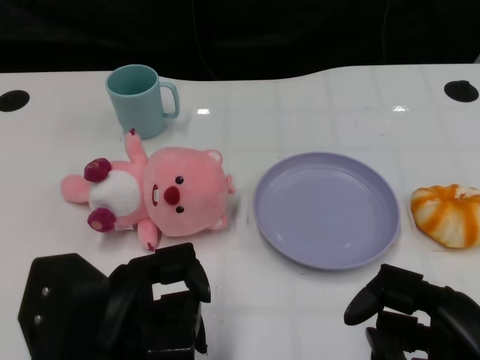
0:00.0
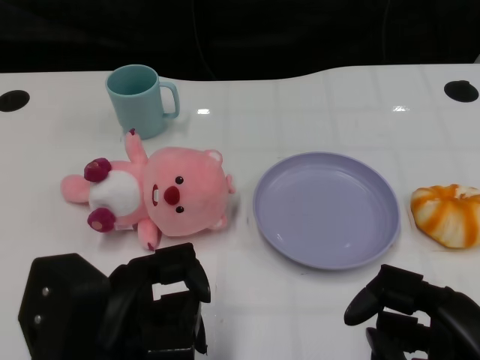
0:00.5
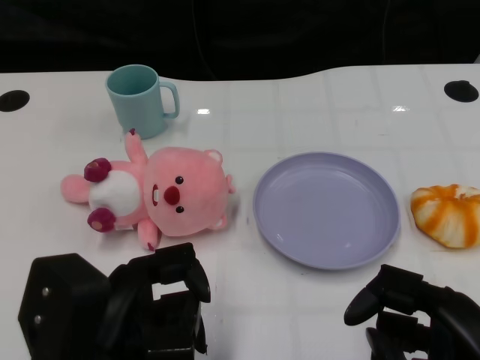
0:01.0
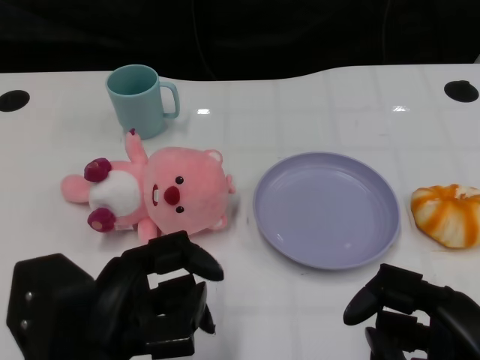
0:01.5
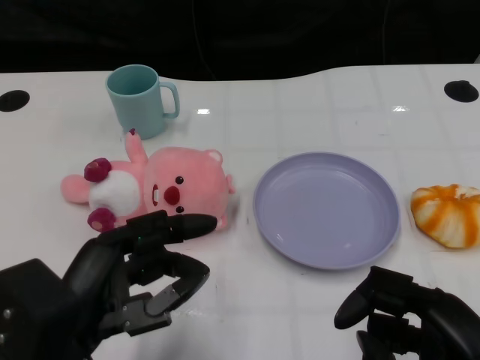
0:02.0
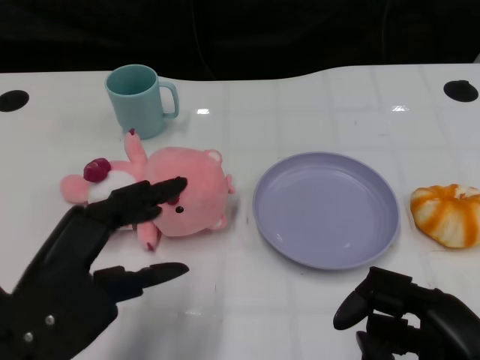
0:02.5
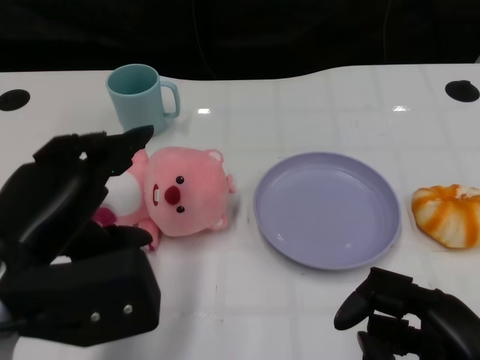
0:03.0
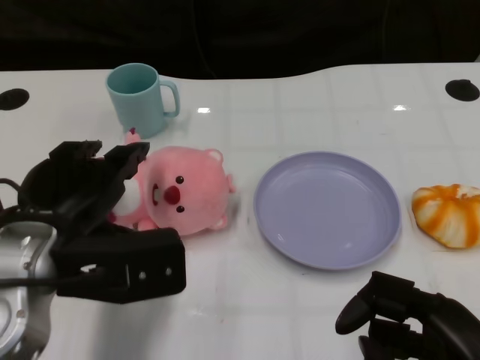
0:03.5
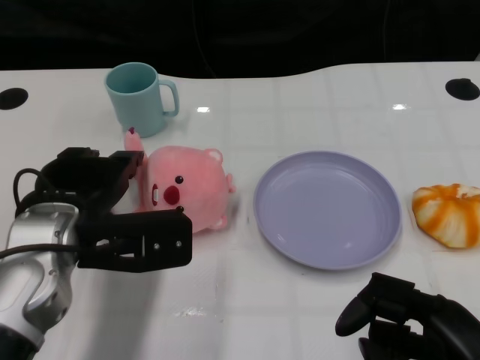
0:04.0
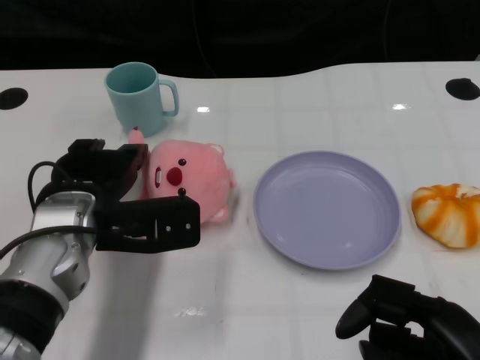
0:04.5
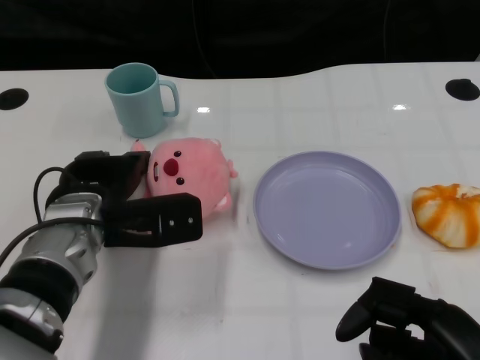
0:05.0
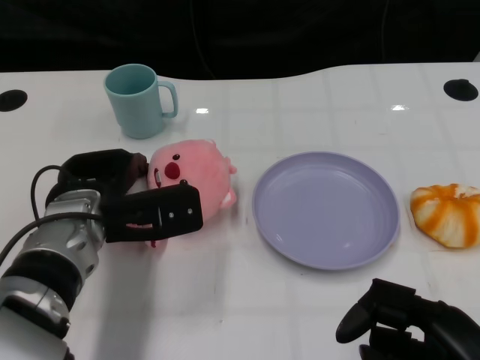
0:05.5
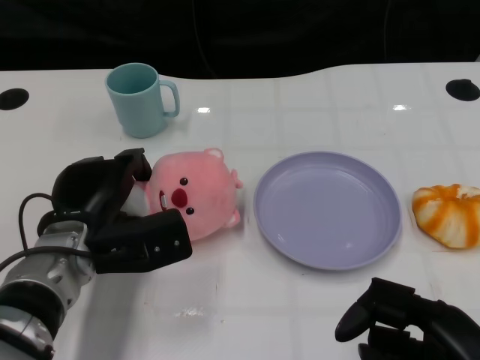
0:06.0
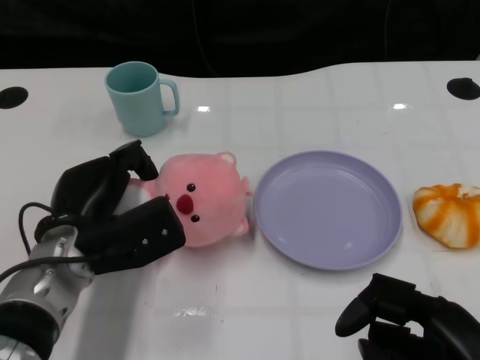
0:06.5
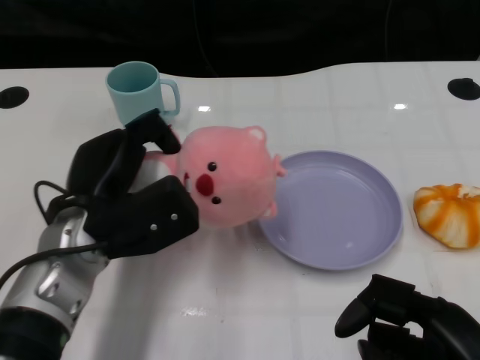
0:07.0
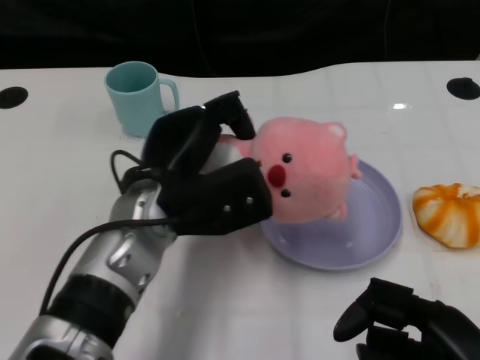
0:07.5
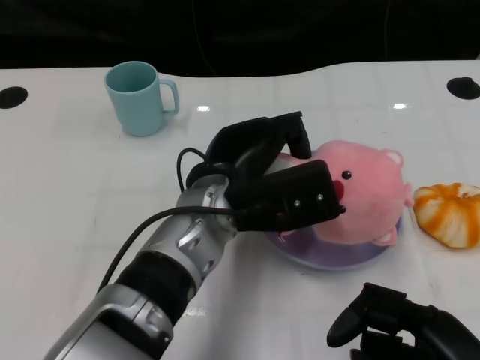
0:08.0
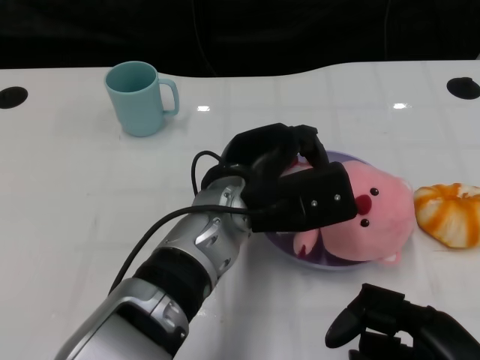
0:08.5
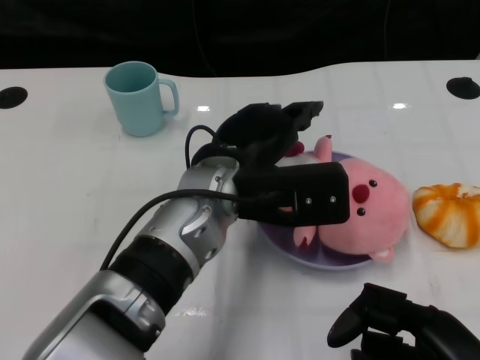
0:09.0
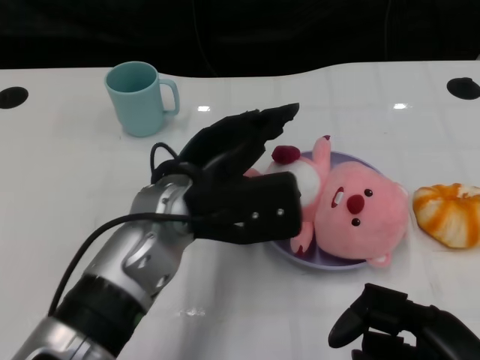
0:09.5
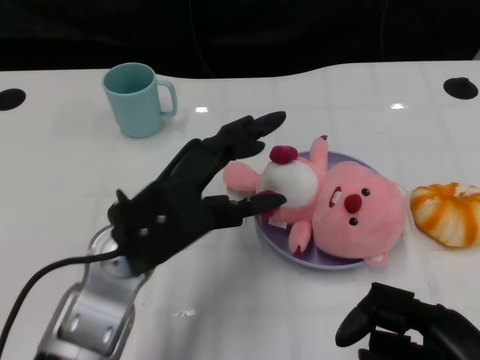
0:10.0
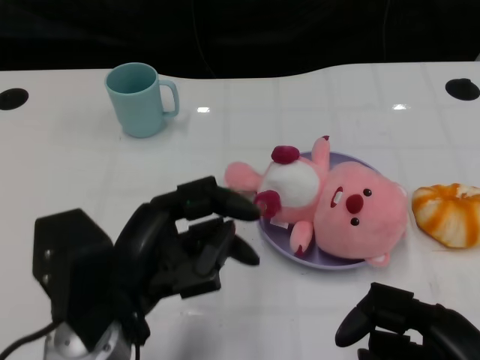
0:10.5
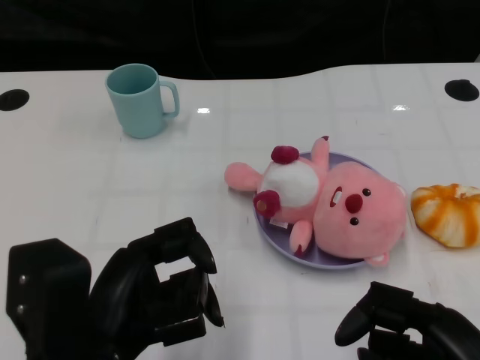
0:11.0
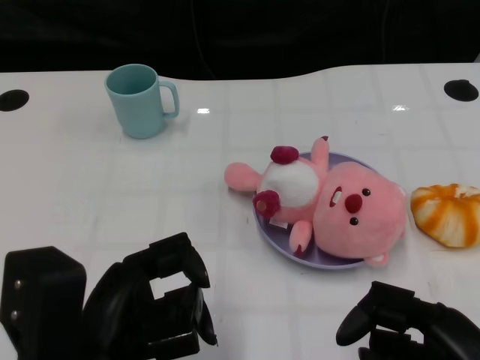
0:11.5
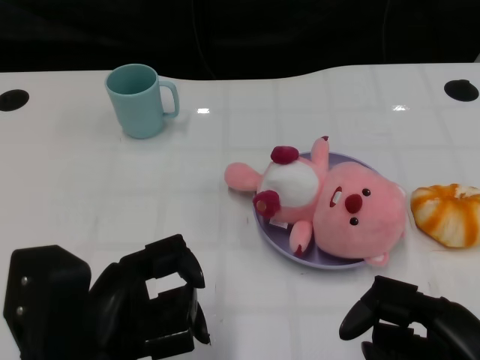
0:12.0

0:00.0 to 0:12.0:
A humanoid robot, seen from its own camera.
Task of the whole recording: Pick up the doll on one side of the plate and place it into the plate.
Step, 0:01.5 to 0:06.5: Grasp the pink doll with the left gripper.
Step, 0:07.0 to 0:09.0: Place the pink doll into the plate with the left gripper.
0:02.0 to 0:04.0: The left hand goes about 10 cm forward.
0:04.0 to 0:06.0: The left hand shifts roughly 5 cm downward.
0:06.0 to 0:08.0: The left hand goes approximately 15 cm to the right and upward.
0:08.0 to 0:10.0: The left hand heads to the left, covering about 10 cm.
0:10.0 to 0:12.0: The left hand heads backward, covering roughly 10 cm.

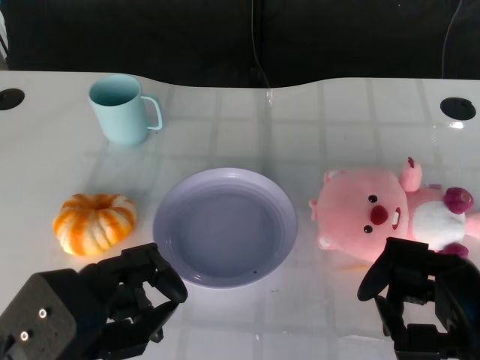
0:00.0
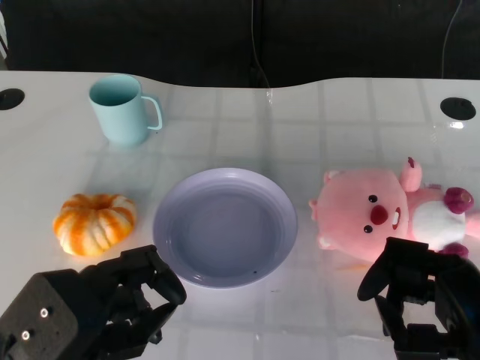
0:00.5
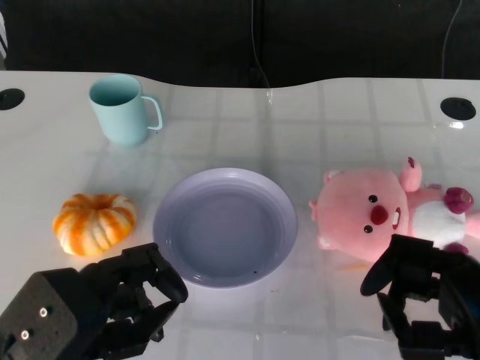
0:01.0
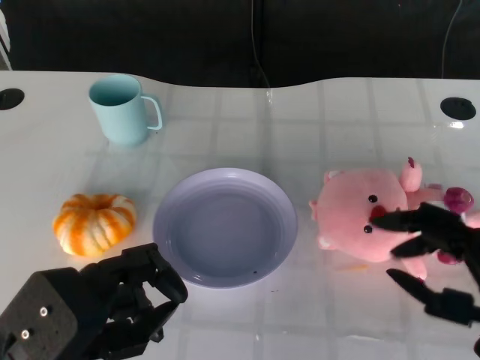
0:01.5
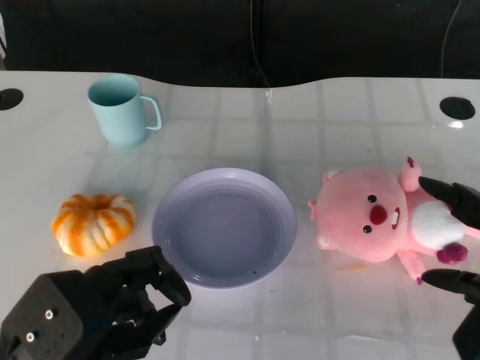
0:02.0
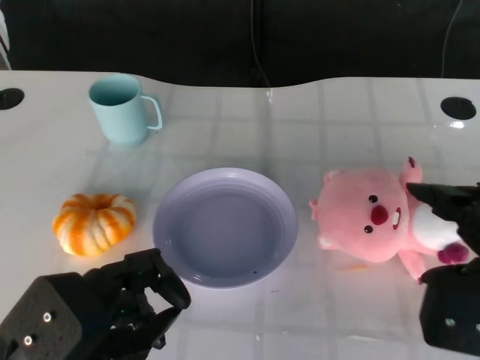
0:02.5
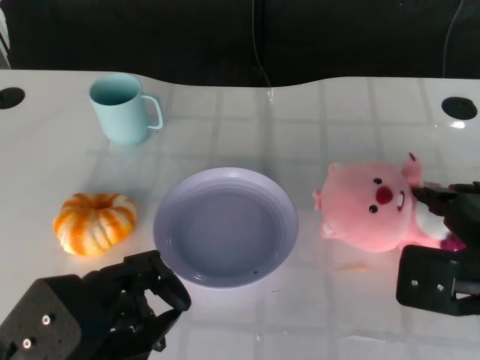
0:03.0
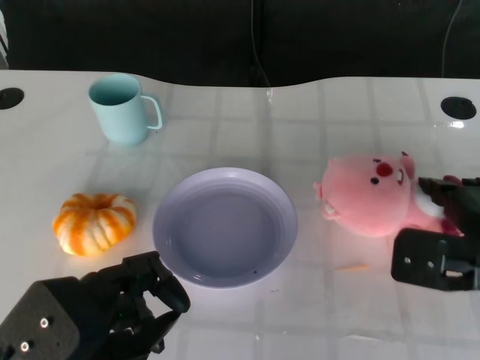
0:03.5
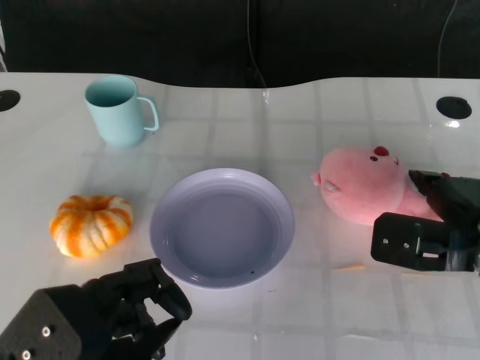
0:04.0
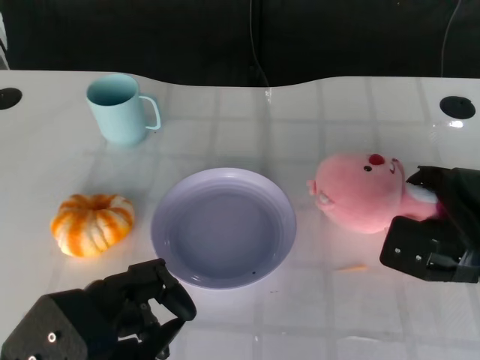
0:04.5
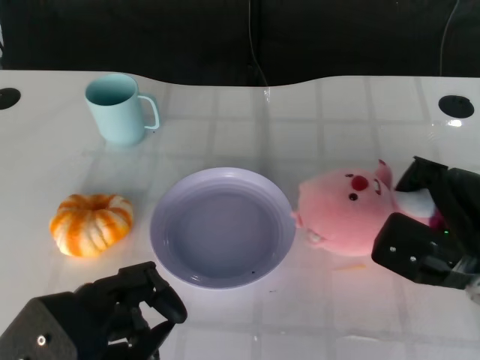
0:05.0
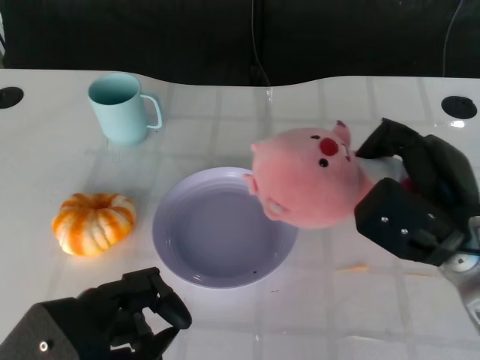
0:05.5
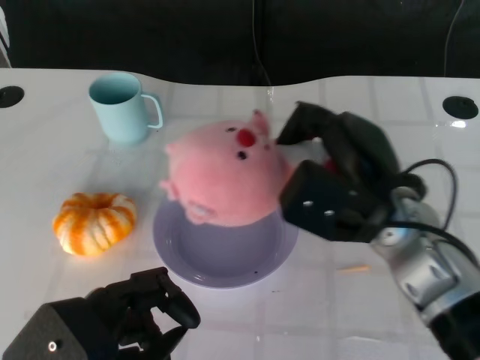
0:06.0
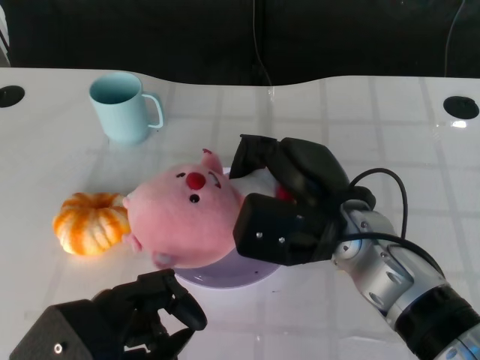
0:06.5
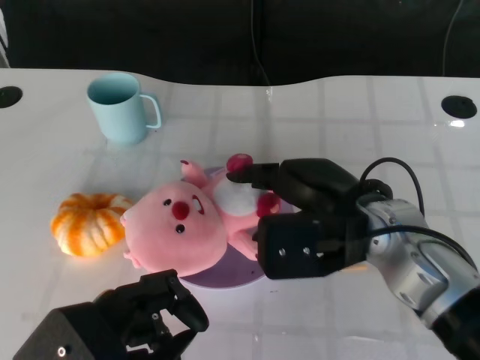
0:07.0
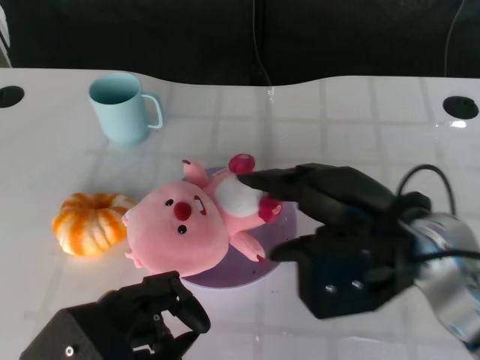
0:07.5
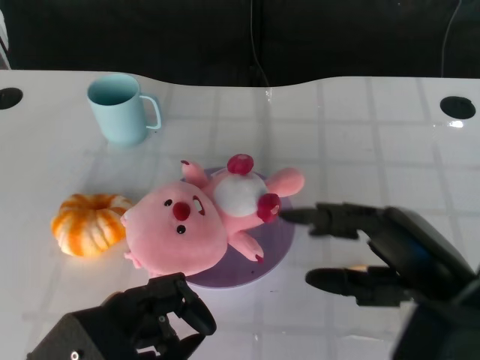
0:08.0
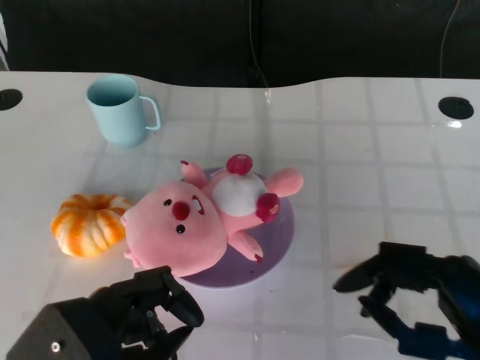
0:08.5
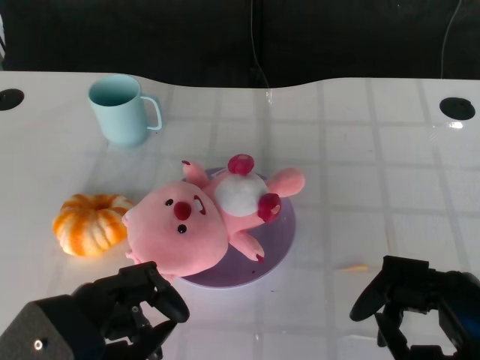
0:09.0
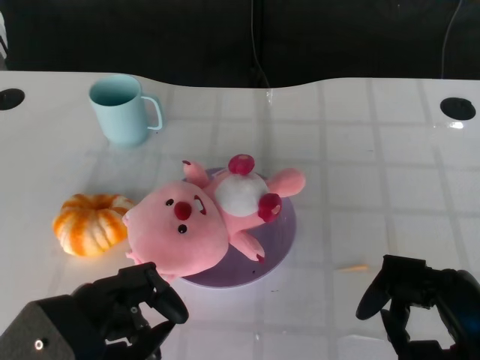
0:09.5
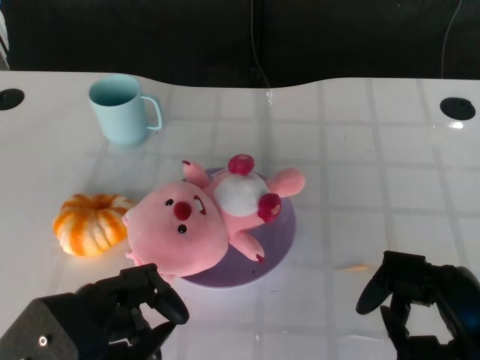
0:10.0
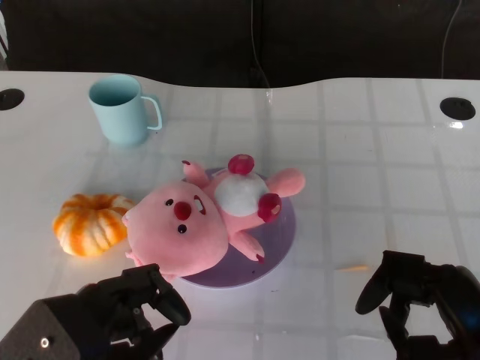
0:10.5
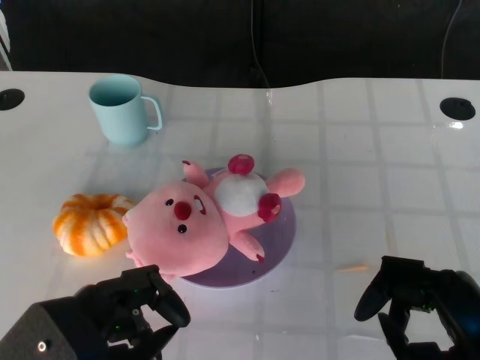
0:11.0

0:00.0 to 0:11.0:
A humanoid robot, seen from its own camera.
Task of the whole recording: Pick up the doll on the other side of the plate and place it into the plate.
Step, 0:01.0 to 0:05.0: Grasp the pink doll with the right gripper.
Step, 0:05.5 to 0:07.5: Place the pink doll into the plate with the right gripper.
0:02.0 to 0:03.5: The right hand goes roughly 10 cm forward.
0:03.5 to 0:05.5: The right hand goes some 5 cm to the left.
0:05.5 to 0:07.5: The right hand heads to the left and upward, covering some 5 cm.
0:07.5 to 0:09.0: The right hand moves backward and to the right, roughly 15 cm.
0:09.0 to 0:11.0: The hands make only small movements.

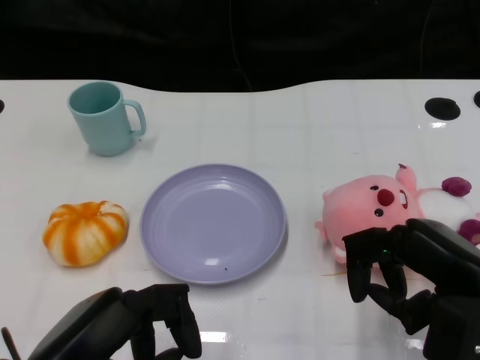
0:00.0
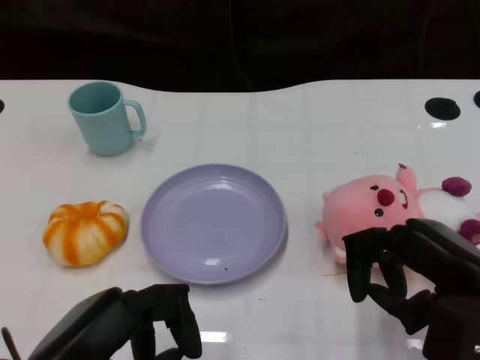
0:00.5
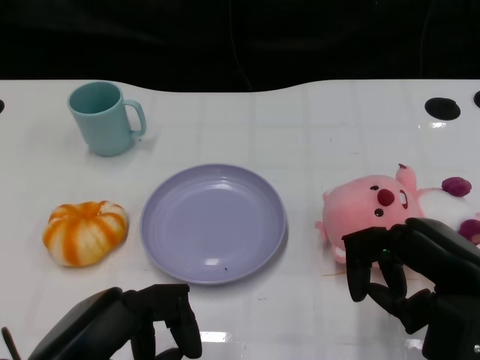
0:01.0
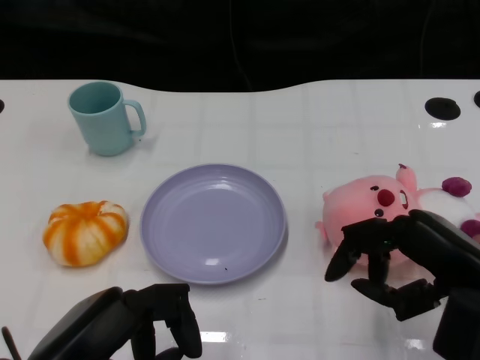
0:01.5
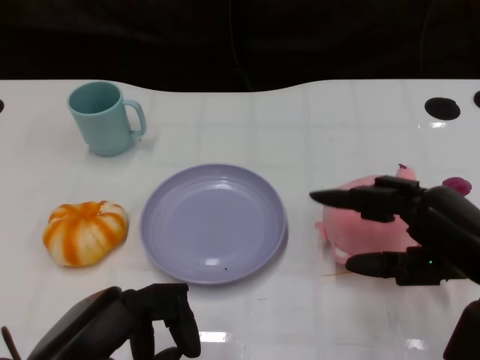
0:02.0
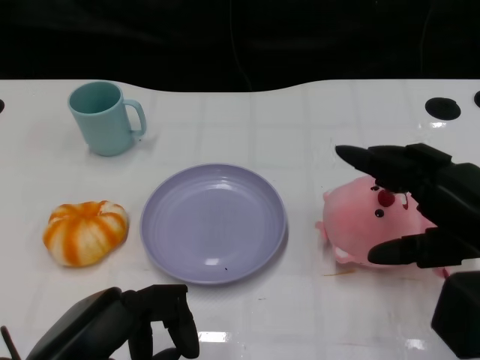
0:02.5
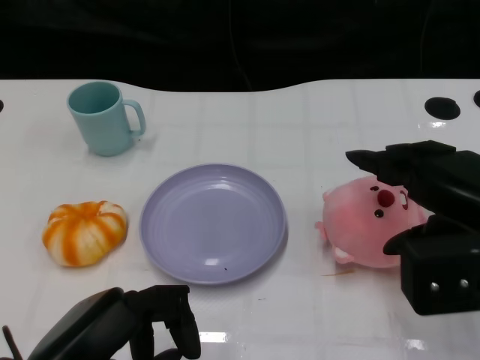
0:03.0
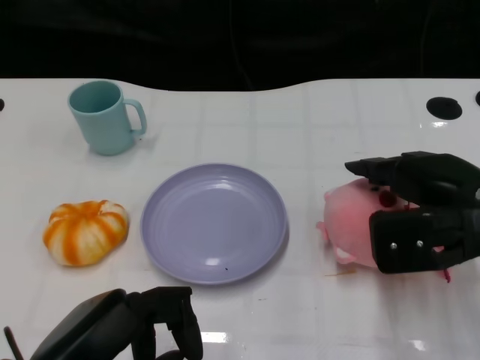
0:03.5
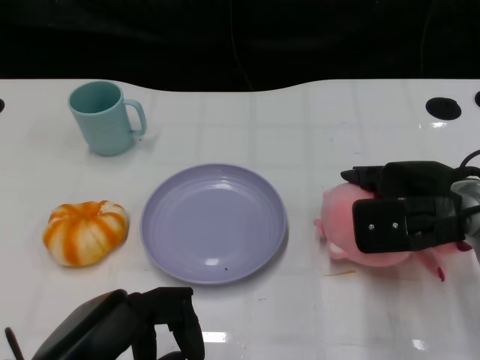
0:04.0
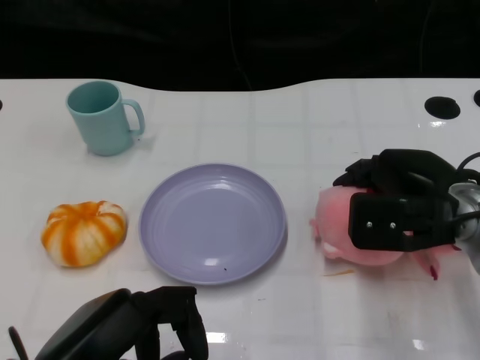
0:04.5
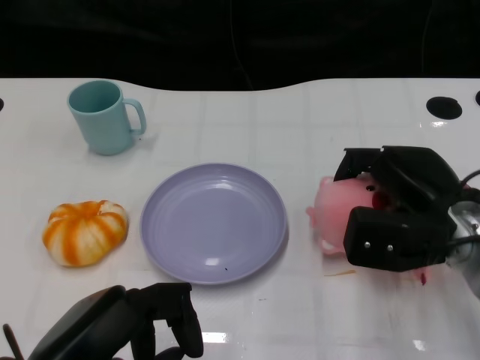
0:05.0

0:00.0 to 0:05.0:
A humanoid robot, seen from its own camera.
Task of the whole recording: Pick up the doll on the other side of the plate and place it into the plate.
0:02.5 to 0:05.0: The right hand moves forward and downward, roughly 10 cm.
